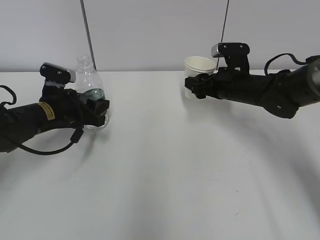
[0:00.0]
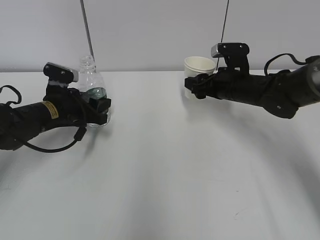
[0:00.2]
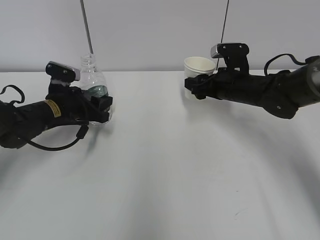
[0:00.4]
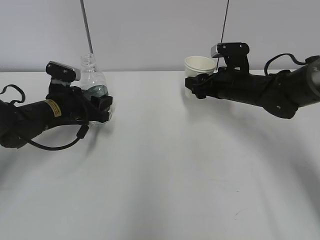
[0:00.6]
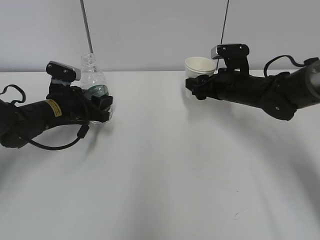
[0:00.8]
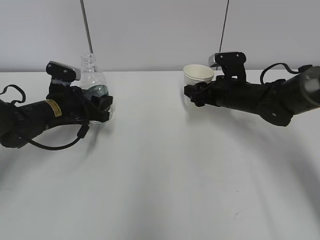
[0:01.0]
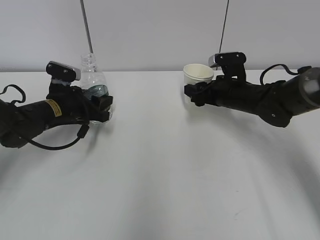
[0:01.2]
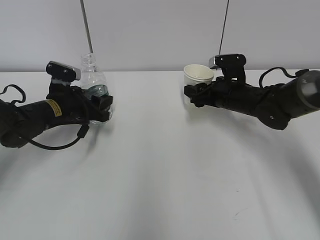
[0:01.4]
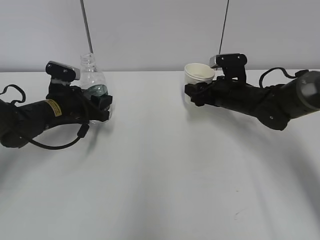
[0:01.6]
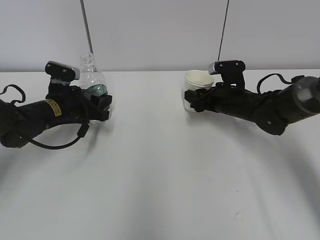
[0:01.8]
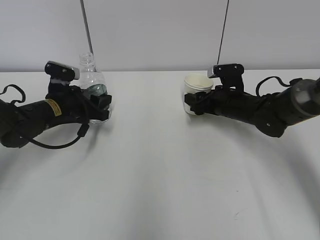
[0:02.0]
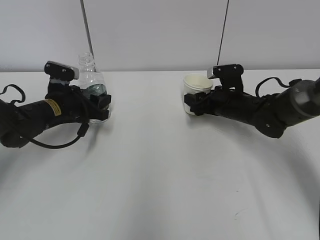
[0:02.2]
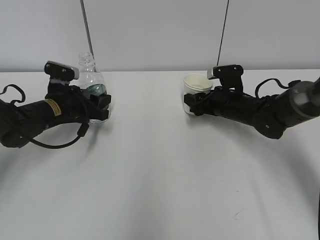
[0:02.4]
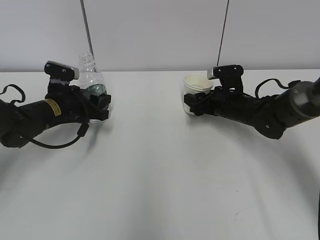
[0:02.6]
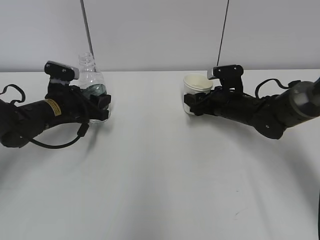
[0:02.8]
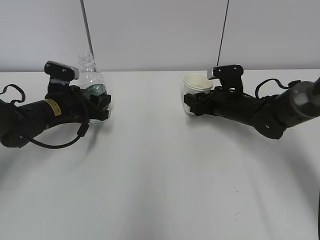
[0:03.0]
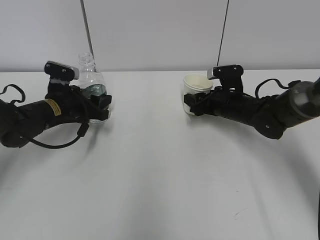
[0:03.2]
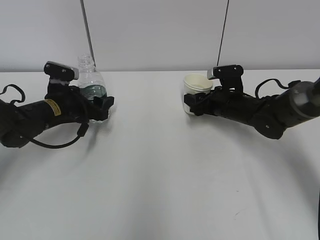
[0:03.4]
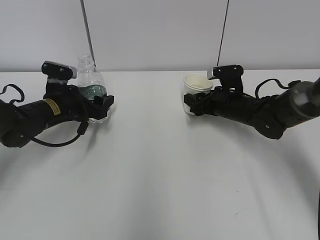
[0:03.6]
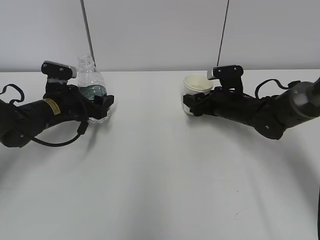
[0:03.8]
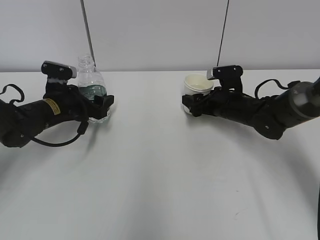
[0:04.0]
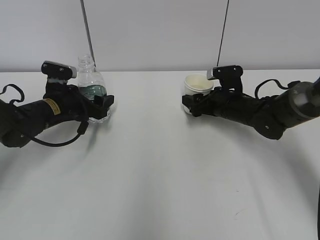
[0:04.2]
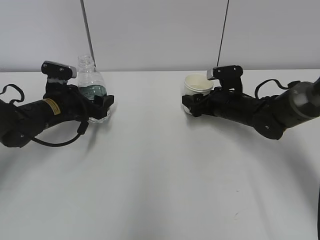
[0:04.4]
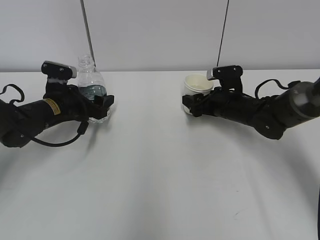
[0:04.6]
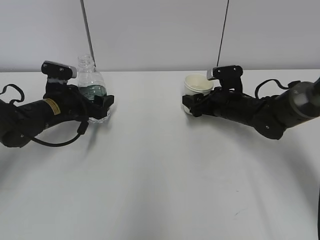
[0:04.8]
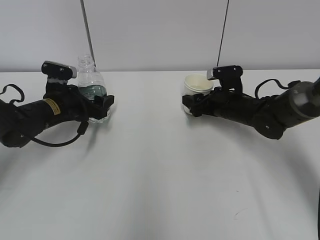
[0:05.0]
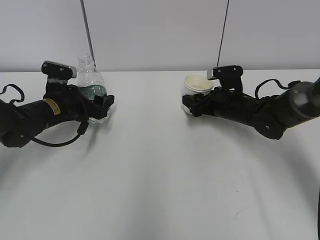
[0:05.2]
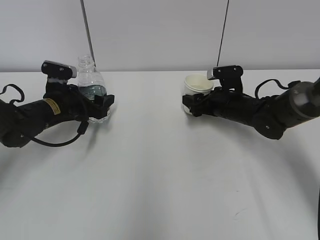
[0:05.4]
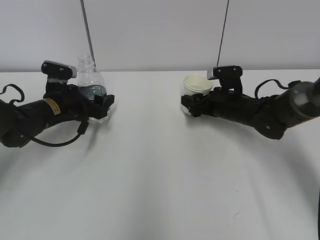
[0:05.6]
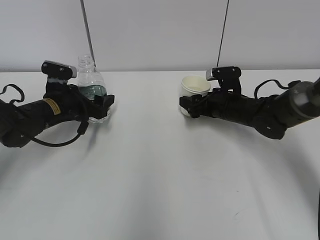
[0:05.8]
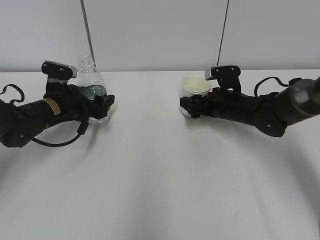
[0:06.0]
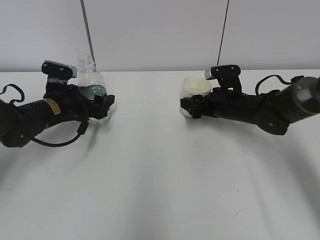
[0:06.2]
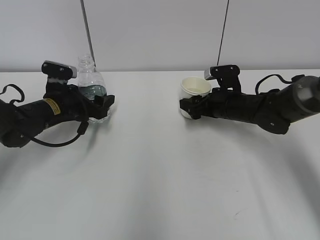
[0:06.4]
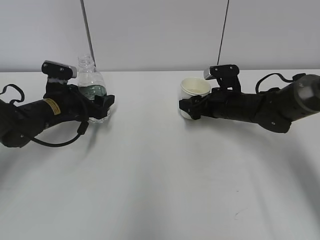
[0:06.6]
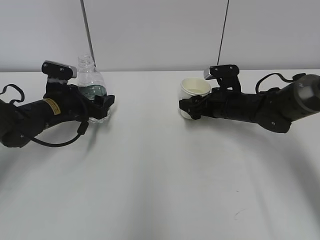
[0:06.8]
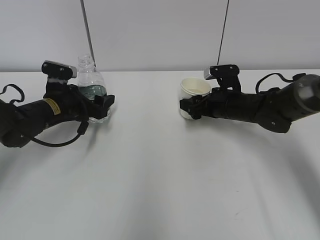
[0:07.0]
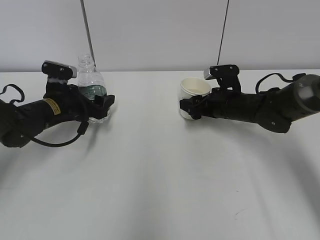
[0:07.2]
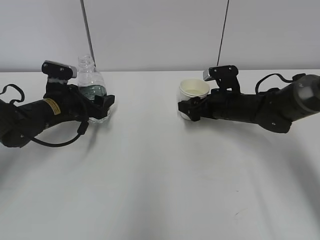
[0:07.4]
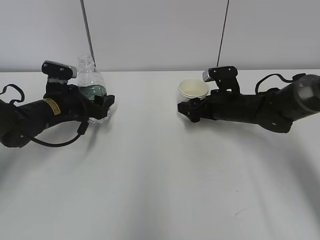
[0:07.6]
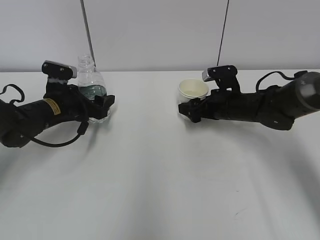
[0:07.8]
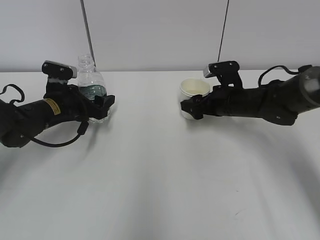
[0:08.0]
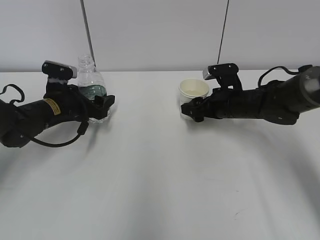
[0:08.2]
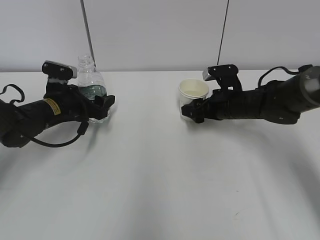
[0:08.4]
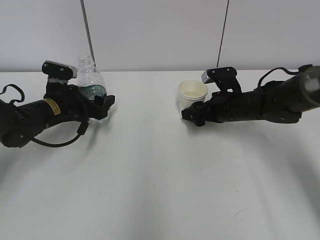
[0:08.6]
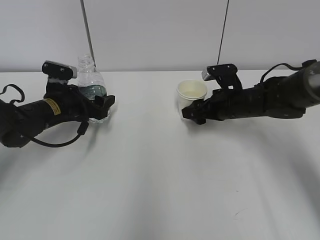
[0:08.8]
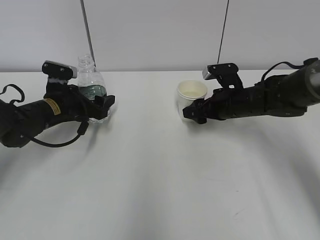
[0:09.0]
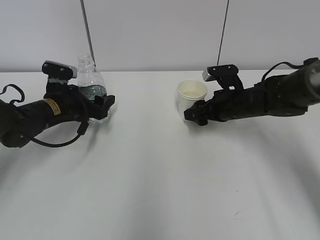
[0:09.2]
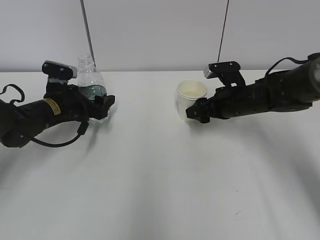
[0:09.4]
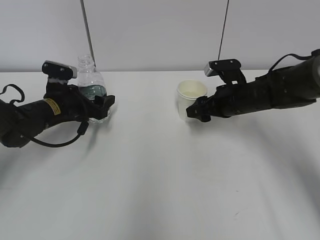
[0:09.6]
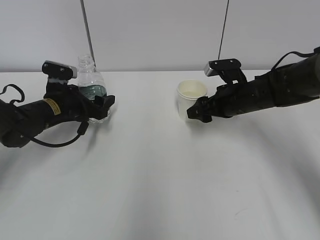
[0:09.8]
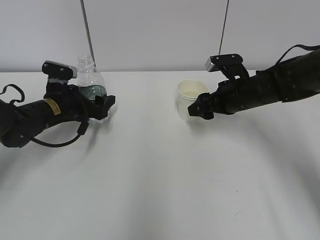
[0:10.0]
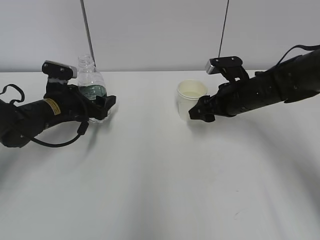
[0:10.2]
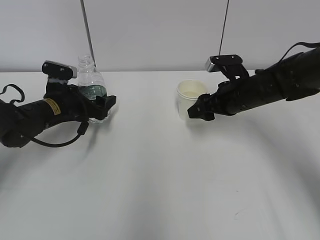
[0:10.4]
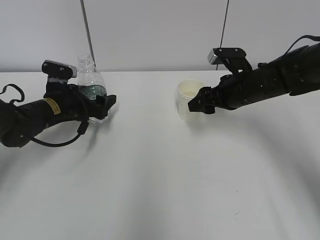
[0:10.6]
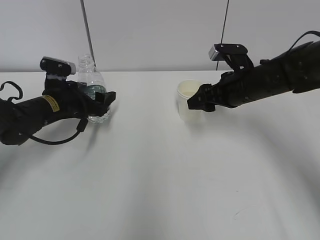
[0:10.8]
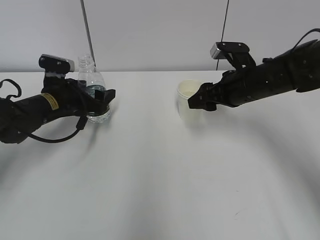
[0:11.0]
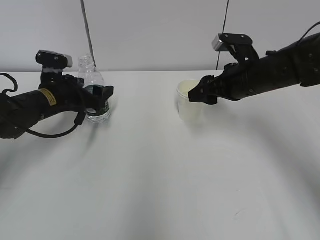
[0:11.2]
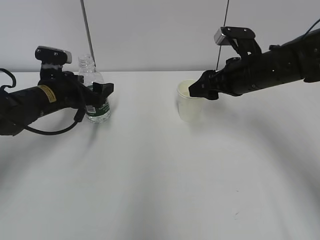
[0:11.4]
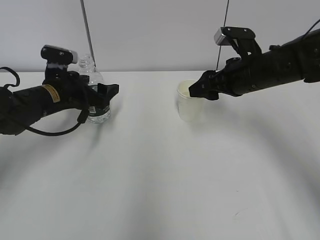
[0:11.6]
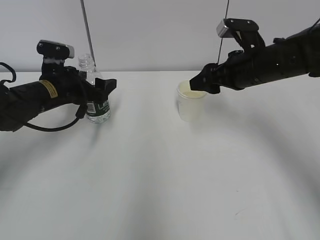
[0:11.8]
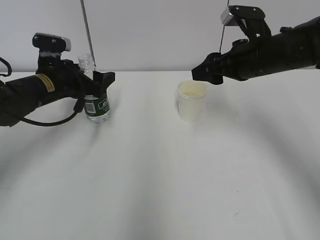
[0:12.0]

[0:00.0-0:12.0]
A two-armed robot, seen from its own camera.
0:00.0 to 0:03.0: There are only small adjustments of the grippers.
0:03.0 to 0:04.4: The left gripper opens its fingers. Meanwhile the right gripper opens.
0:04.4 to 0:06.0: Neither gripper changes place.
0:06.0 to 0:07.6: There are only small adjustments of the grippers.
0:07.6 to 0:09.0: The right gripper closes up.
0:09.0 to 0:10.4: The grippers stay close to where they were, moving slightly.
0:10.4 to 0:12.0: The right gripper heads upward, covering some 10 cm. The left gripper goes approximately 5 cm upward.

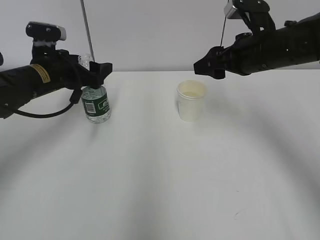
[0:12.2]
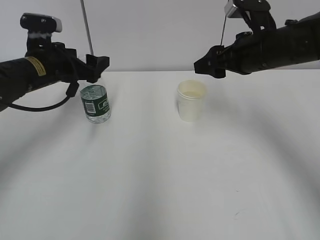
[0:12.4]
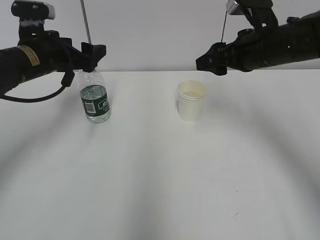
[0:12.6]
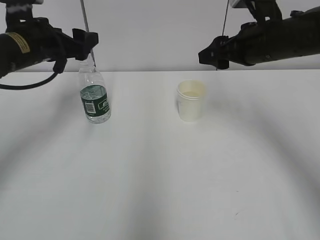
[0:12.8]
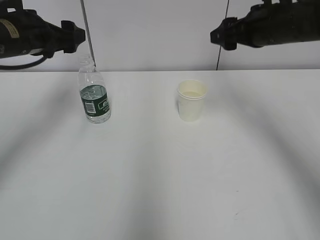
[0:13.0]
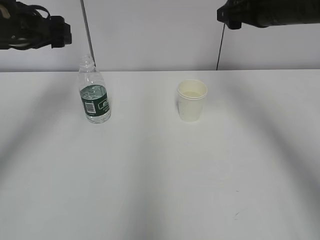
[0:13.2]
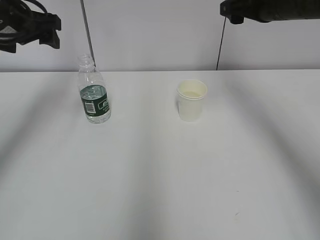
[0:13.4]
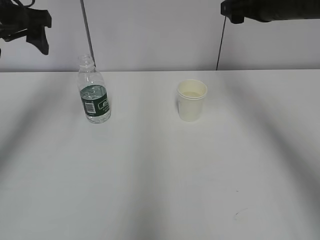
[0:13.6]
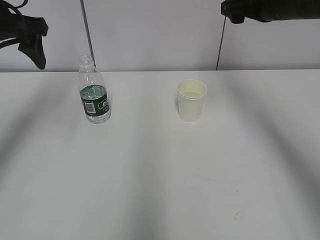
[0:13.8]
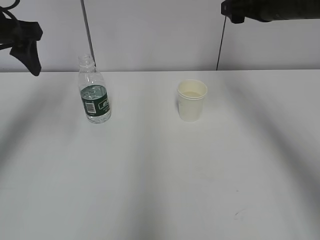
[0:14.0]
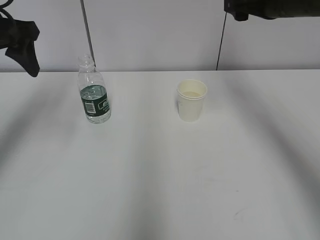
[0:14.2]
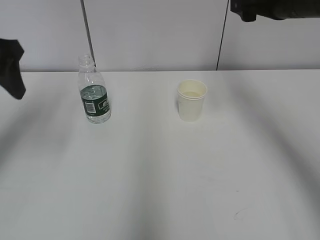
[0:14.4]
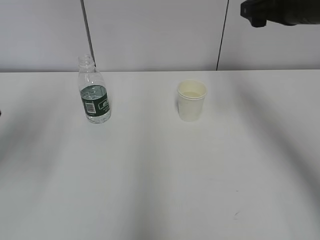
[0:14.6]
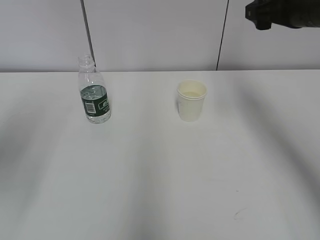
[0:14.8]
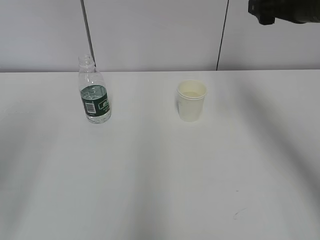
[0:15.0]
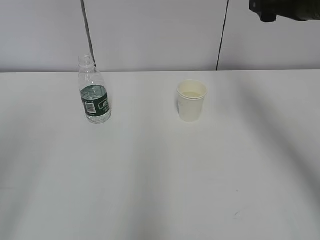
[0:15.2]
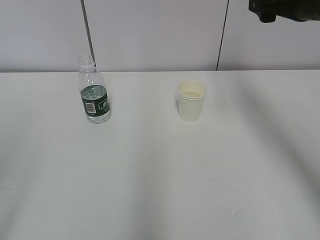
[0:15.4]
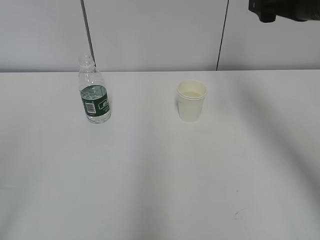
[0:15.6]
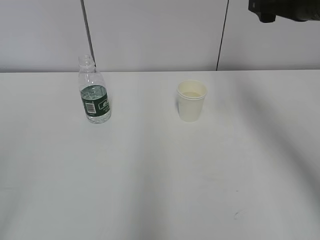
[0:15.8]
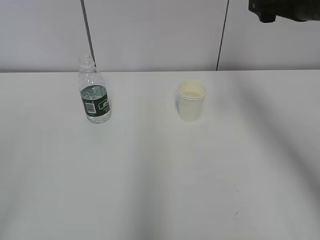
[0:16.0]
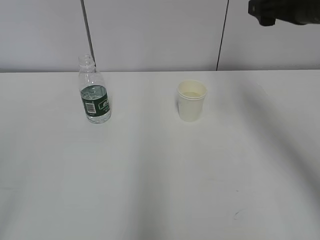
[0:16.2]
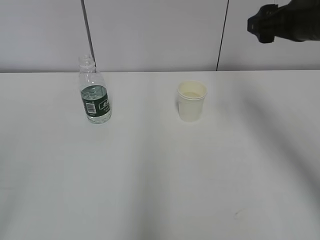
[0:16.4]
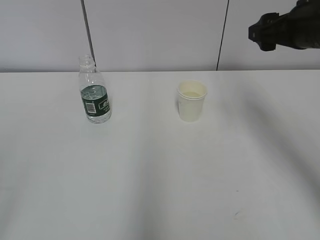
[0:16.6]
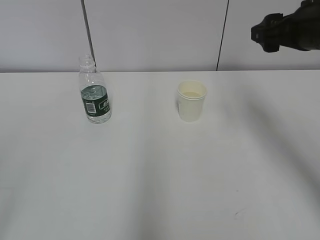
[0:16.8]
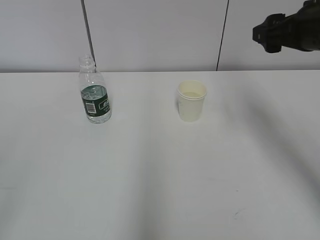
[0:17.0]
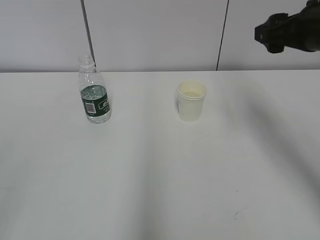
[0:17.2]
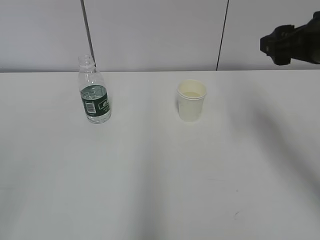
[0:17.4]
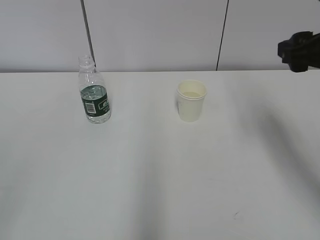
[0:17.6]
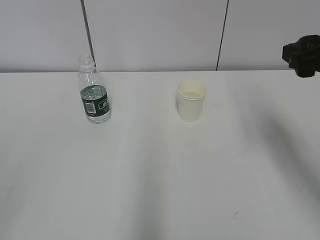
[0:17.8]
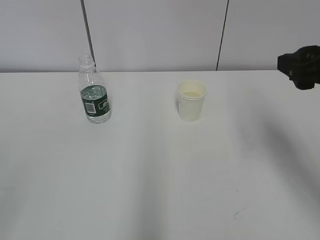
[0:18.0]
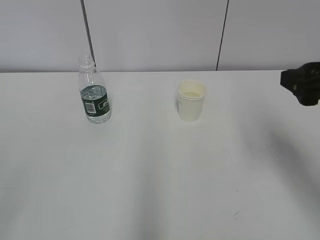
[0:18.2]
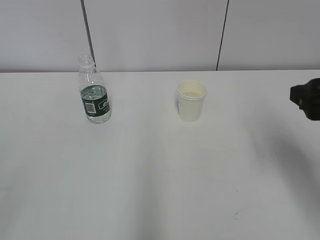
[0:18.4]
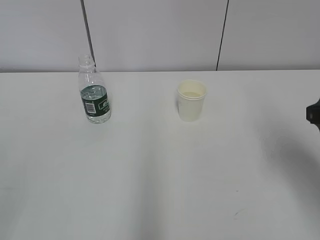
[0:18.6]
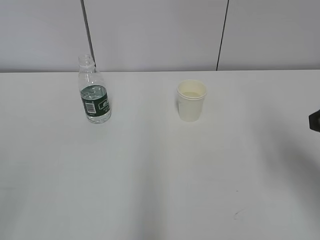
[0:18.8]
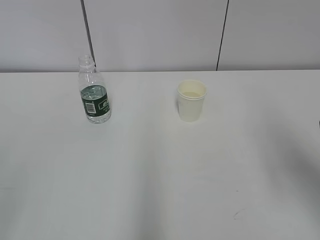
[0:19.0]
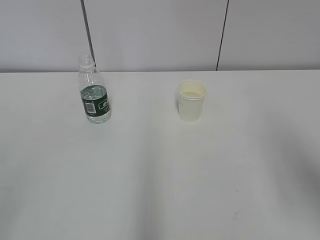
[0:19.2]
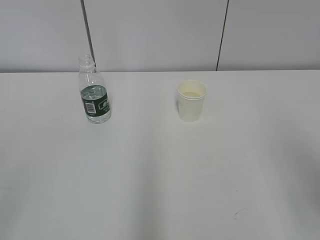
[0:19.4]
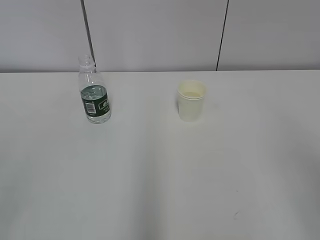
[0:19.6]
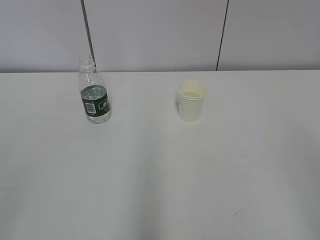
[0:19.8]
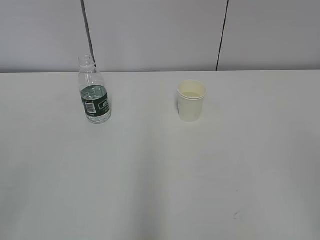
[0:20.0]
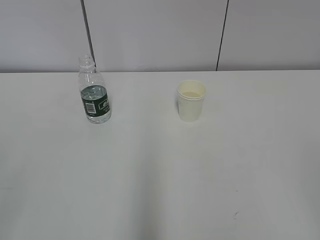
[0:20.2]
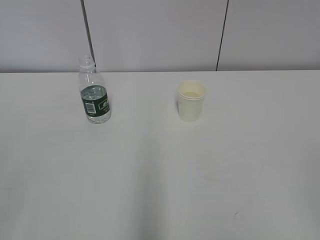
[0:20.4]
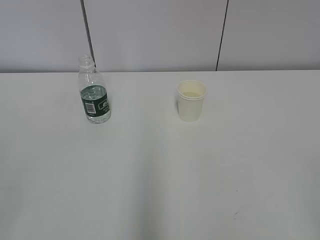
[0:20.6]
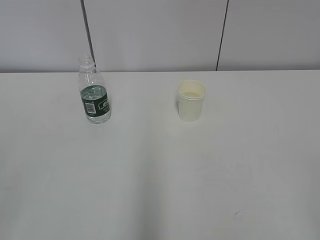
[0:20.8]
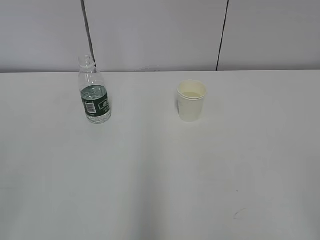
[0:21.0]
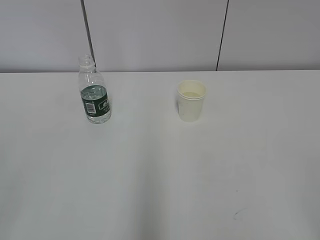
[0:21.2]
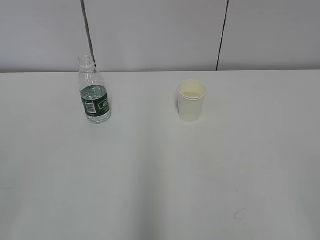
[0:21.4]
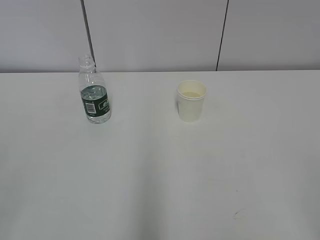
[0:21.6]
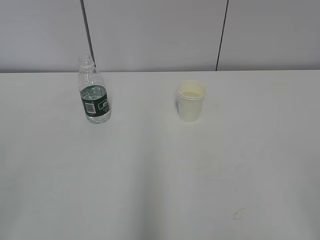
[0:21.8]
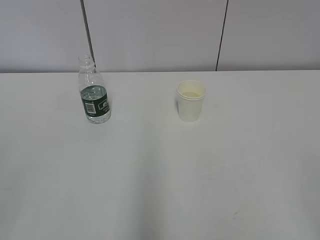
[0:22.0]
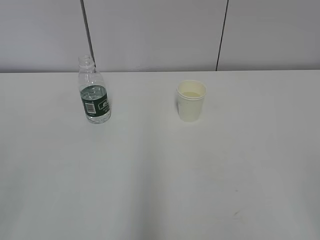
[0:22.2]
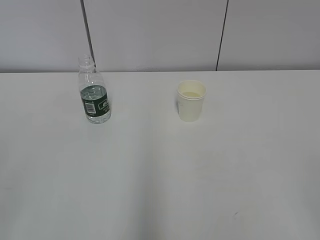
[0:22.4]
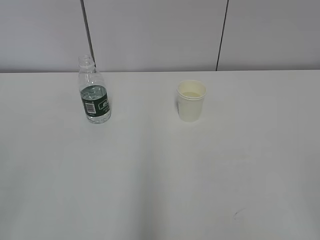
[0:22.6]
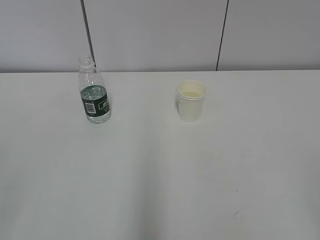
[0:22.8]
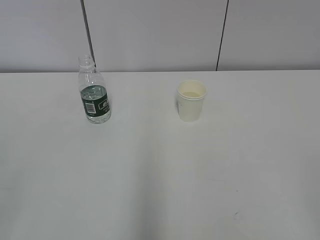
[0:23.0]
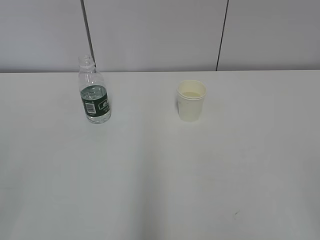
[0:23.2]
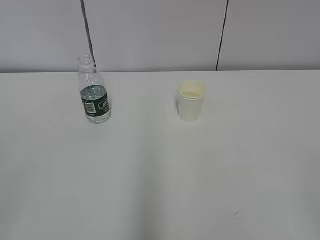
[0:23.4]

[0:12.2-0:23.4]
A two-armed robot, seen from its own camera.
0:12.2 to 0:13.8: The left gripper travels upward by approximately 15 cm. The right gripper is displaced upward by roughly 5 cm.
0:13.8 to 0:15.4: The right gripper shifts approximately 5 cm backward; the left gripper travels backward by about 30 cm.
0:17.0 to 0:18.6: The right gripper is displaced backward and downward by about 10 cm.
0:18.6 to 0:20.2: The right gripper is displaced backward by approximately 25 cm.
